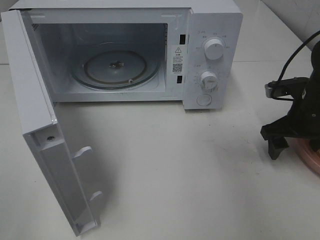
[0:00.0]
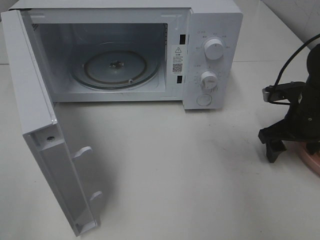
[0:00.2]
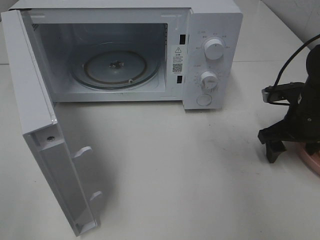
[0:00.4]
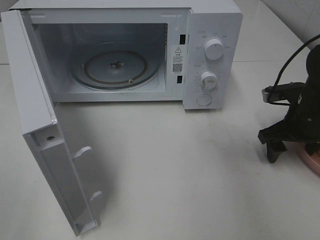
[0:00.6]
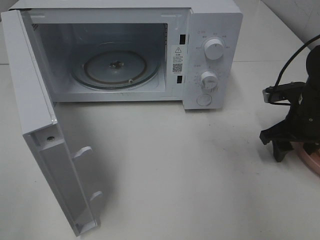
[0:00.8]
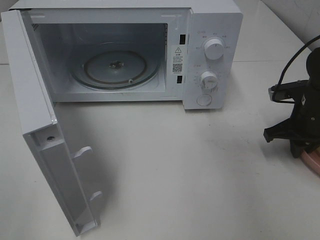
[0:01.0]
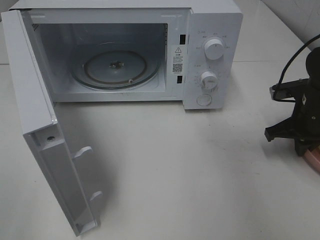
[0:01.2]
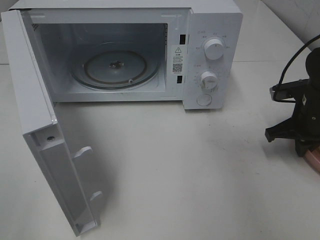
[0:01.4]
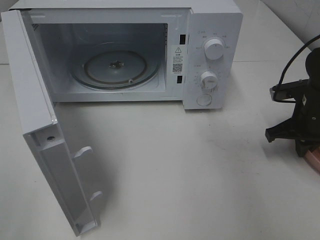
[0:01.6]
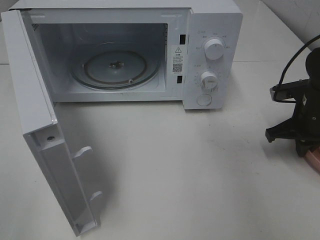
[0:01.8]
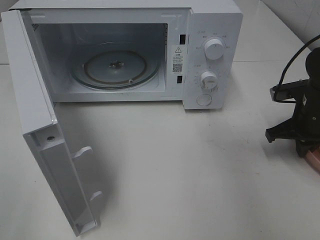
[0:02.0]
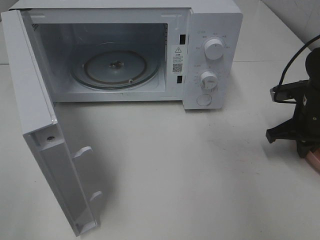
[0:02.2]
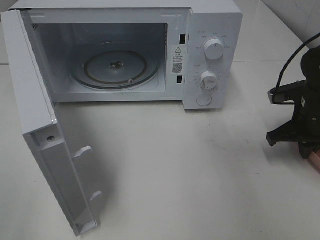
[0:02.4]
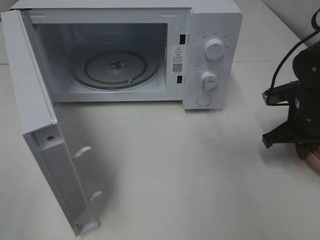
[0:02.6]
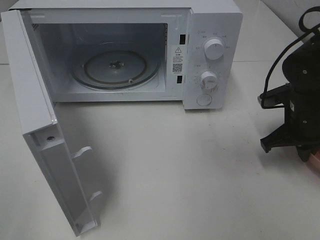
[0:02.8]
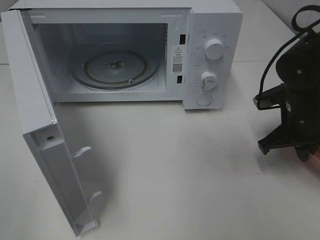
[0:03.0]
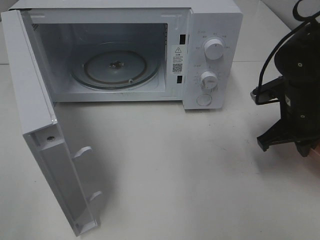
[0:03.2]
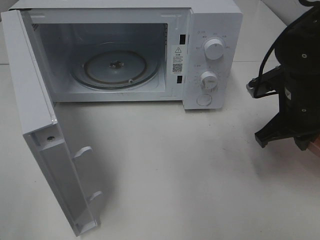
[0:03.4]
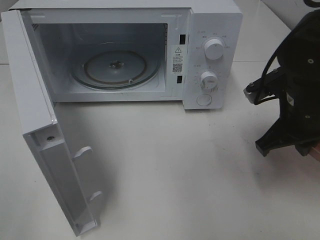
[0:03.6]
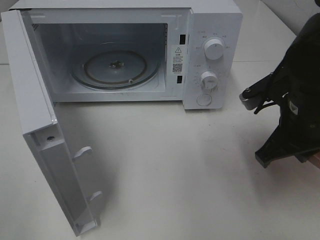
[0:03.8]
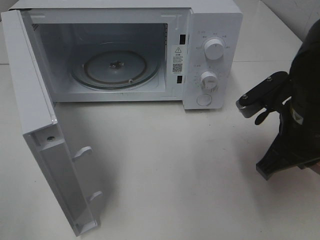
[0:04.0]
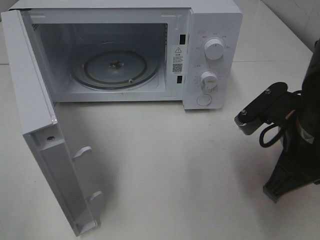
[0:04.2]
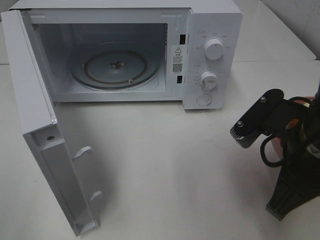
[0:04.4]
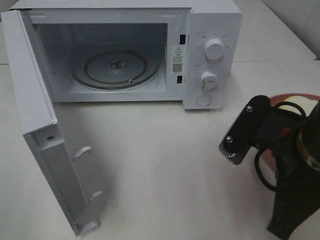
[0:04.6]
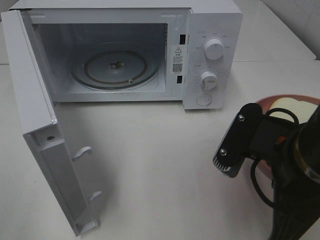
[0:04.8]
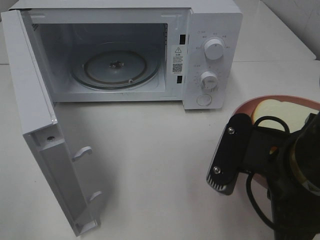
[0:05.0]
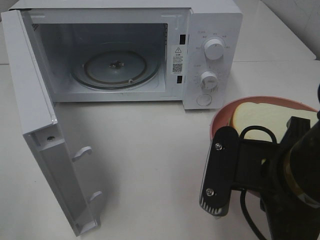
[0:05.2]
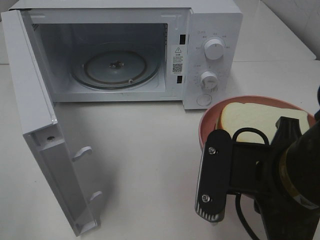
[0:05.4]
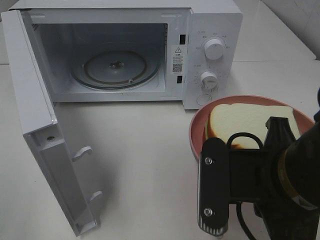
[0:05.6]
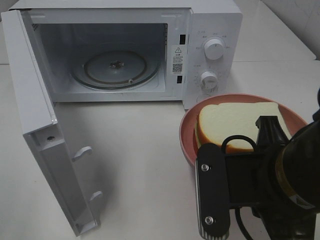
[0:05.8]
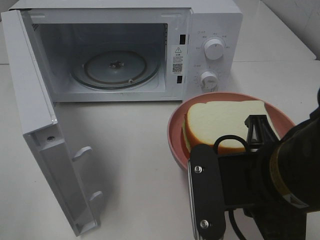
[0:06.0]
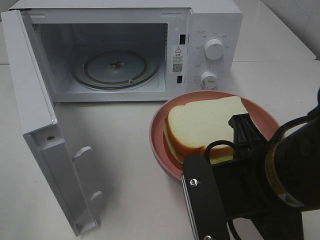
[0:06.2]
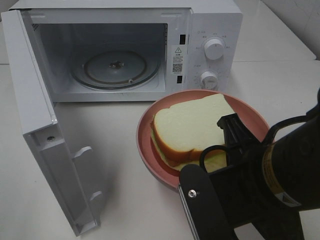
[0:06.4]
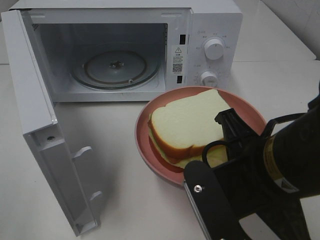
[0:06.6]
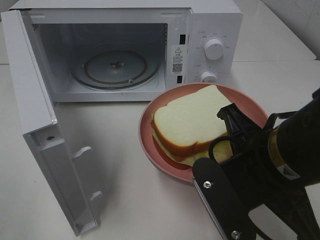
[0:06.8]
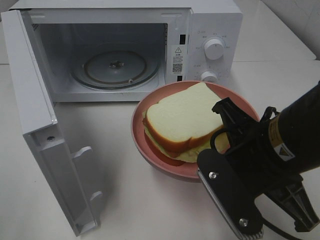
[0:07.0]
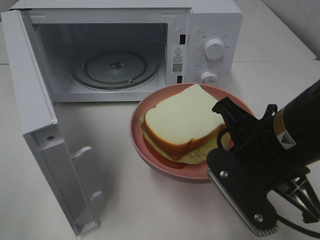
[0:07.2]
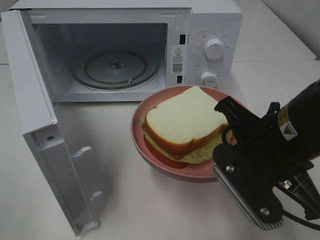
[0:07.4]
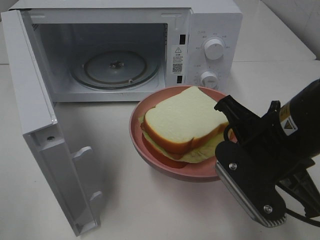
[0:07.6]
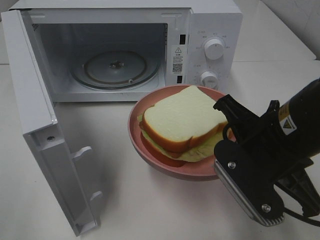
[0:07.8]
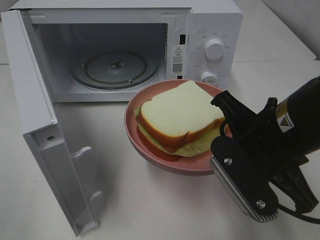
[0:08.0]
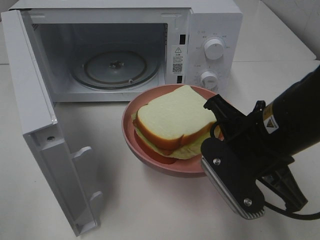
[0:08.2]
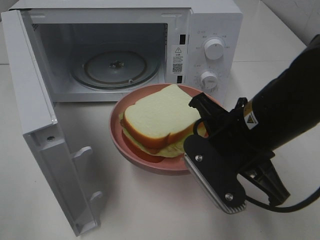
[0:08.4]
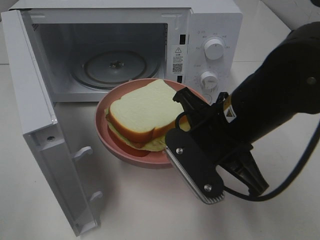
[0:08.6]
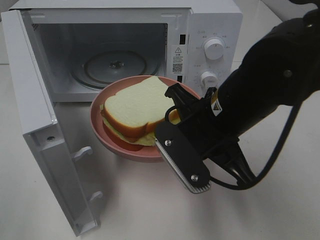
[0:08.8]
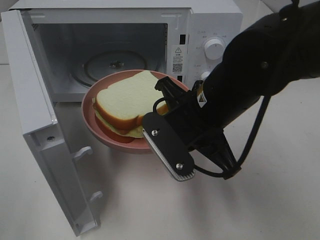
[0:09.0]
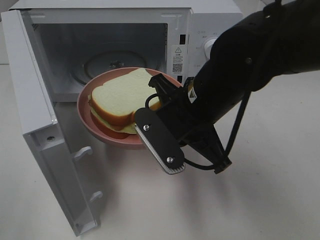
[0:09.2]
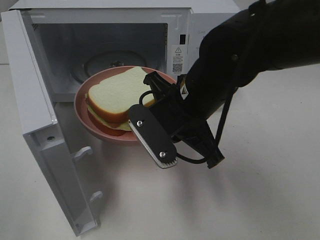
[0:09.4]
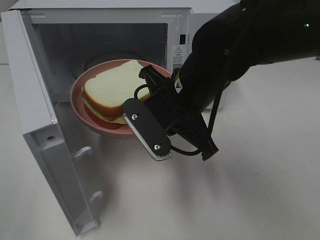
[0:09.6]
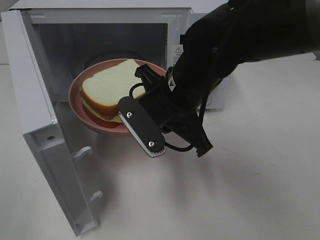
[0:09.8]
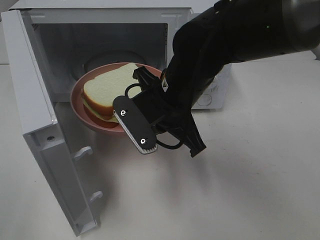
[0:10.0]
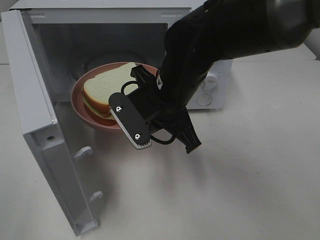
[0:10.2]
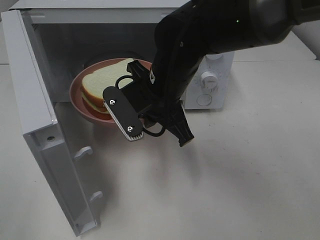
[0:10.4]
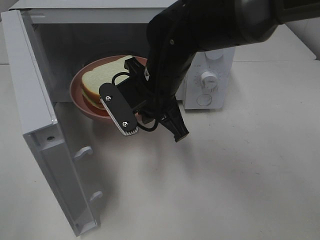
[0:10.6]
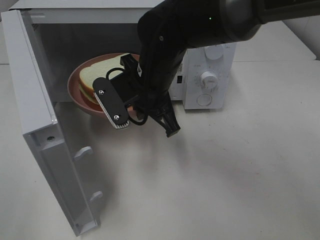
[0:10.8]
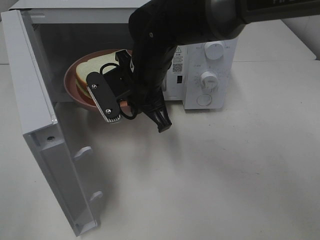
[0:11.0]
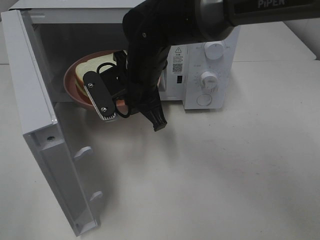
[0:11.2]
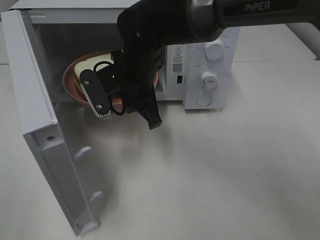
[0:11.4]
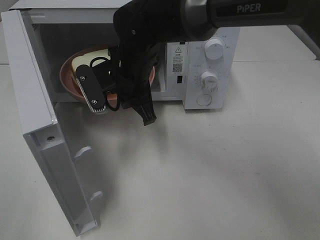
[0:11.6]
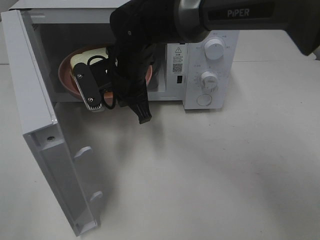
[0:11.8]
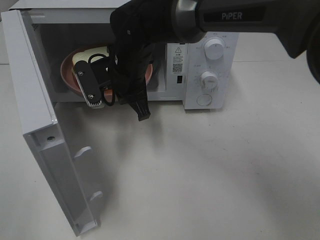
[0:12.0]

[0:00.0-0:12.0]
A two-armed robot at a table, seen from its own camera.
Task of the whole recording: Heat Sandwich.
0:00.0 to 0:01.6: The right gripper closes its fingers.
0:01.6 to 0:03.0: The grippers stay close to where they were, moving slightly.
0:03.0 to 0:04.4: The right gripper goes roughly 20 cm backward, to the left and upward.
0:04.4 to 0:06.0: The right gripper travels to the left by approximately 5 cm.
0:06.0 to 0:07.6: The right gripper travels forward by some 5 cm.
0:07.6 to 0:09.0: The right gripper heads to the left and forward, covering some 10 cm.
0:09.0 to 0:10.4: The right gripper moves forward and to the left, approximately 10 cm.
0:10.4 to 0:12.0: The right gripper shifts roughly 10 cm forward and to the left.

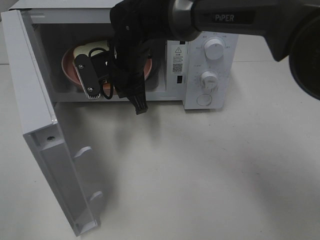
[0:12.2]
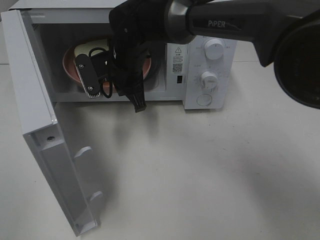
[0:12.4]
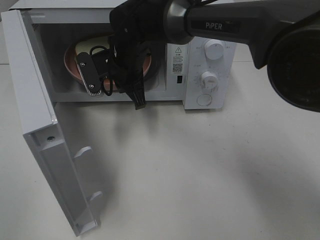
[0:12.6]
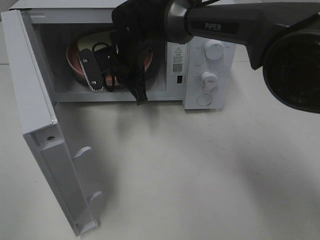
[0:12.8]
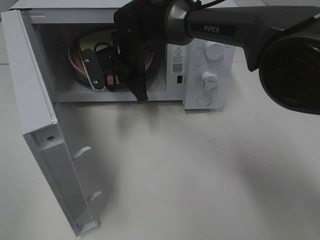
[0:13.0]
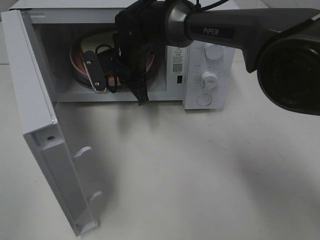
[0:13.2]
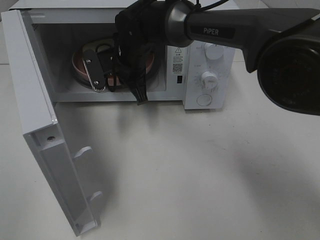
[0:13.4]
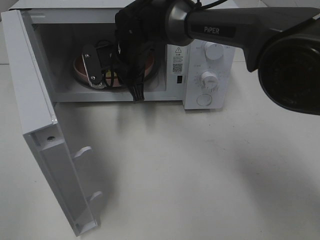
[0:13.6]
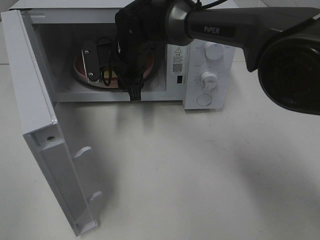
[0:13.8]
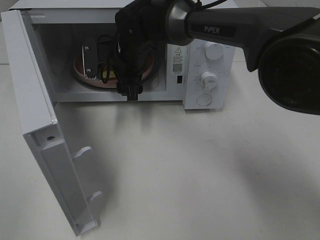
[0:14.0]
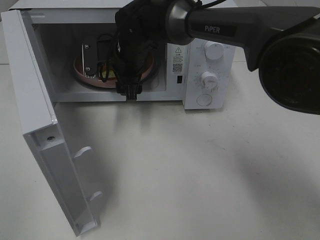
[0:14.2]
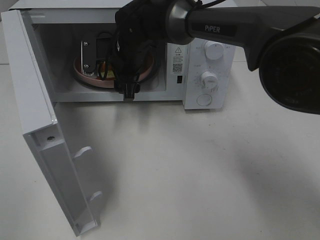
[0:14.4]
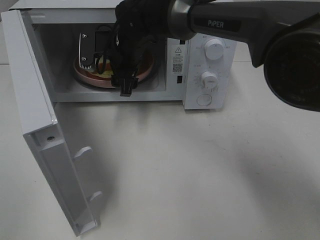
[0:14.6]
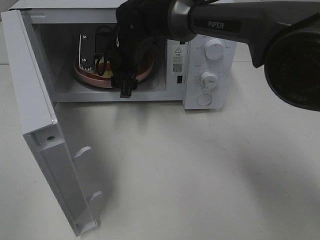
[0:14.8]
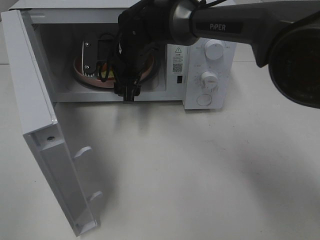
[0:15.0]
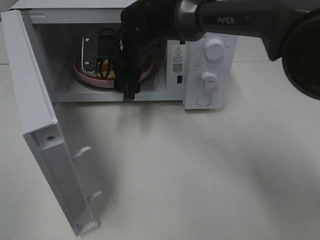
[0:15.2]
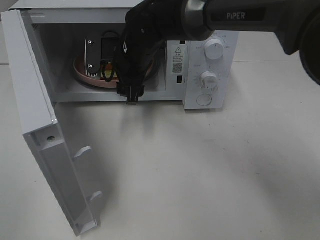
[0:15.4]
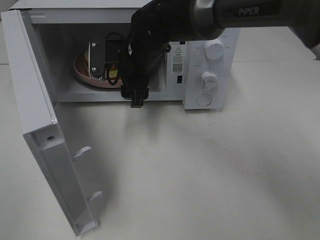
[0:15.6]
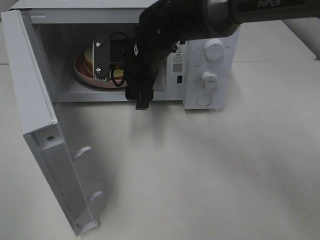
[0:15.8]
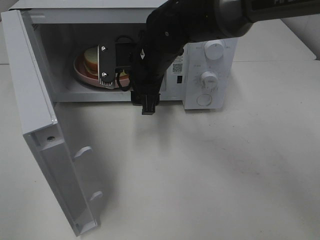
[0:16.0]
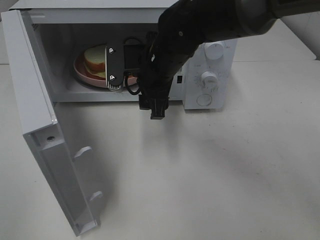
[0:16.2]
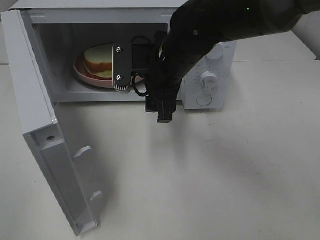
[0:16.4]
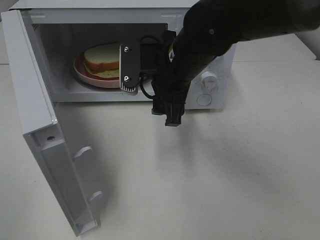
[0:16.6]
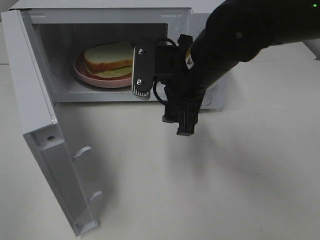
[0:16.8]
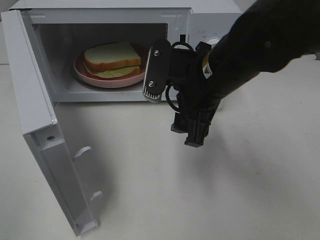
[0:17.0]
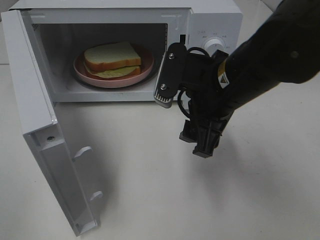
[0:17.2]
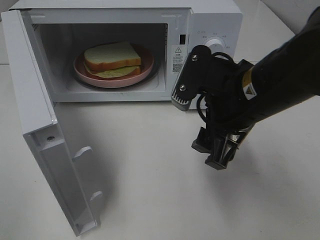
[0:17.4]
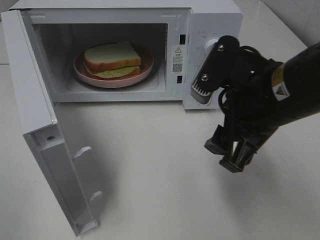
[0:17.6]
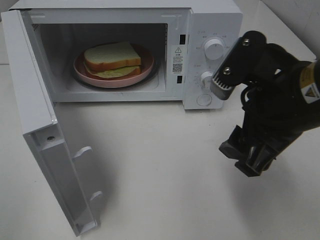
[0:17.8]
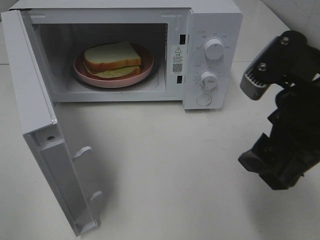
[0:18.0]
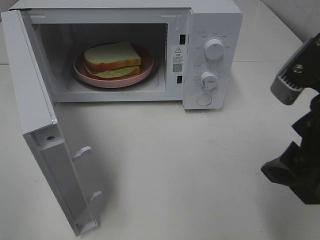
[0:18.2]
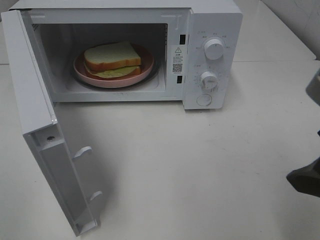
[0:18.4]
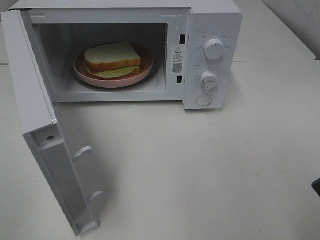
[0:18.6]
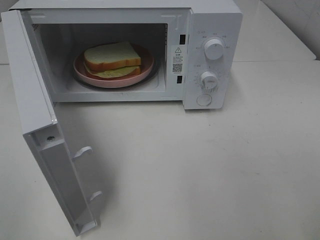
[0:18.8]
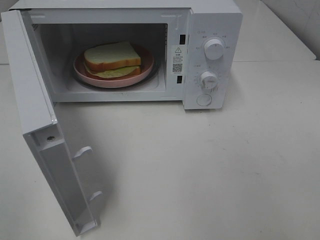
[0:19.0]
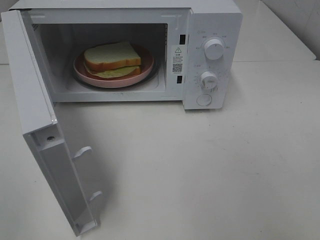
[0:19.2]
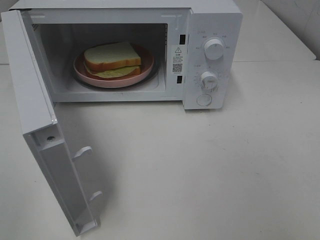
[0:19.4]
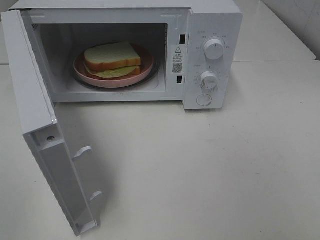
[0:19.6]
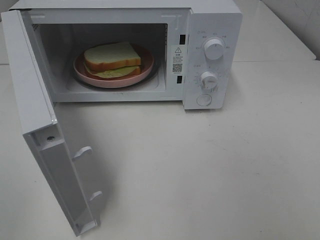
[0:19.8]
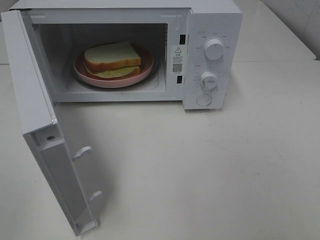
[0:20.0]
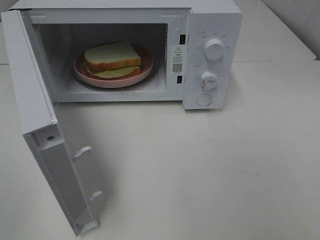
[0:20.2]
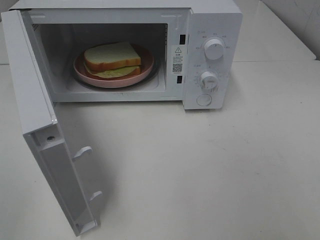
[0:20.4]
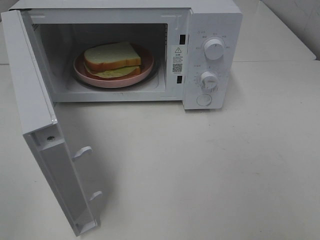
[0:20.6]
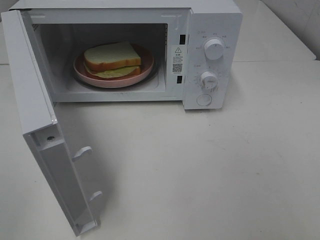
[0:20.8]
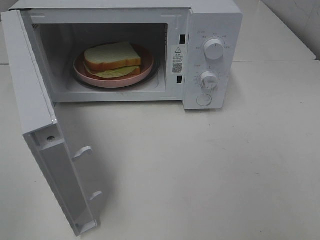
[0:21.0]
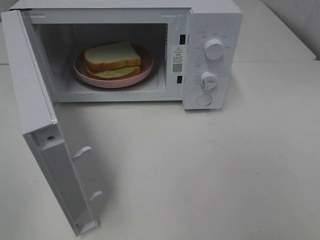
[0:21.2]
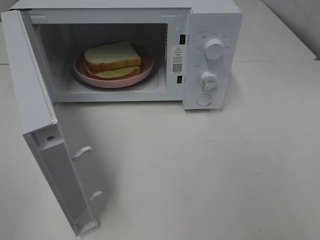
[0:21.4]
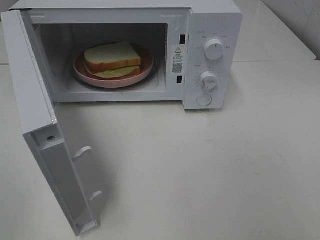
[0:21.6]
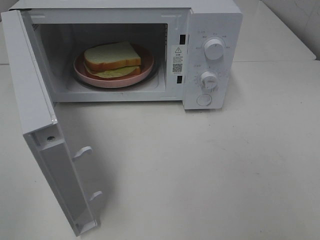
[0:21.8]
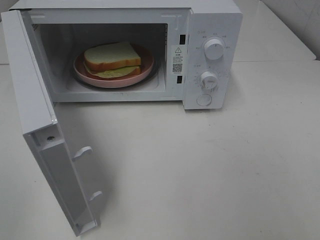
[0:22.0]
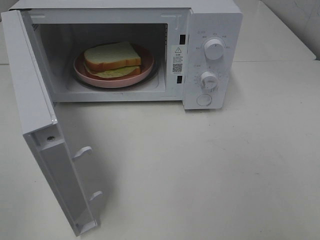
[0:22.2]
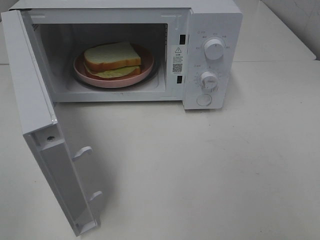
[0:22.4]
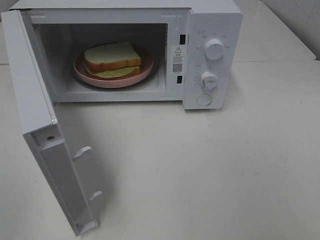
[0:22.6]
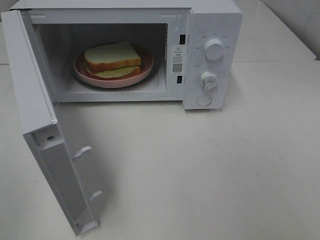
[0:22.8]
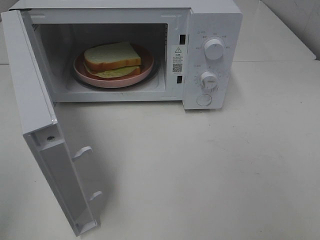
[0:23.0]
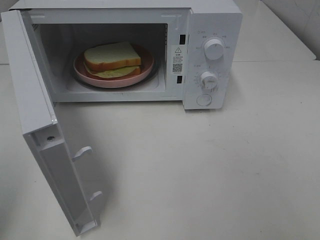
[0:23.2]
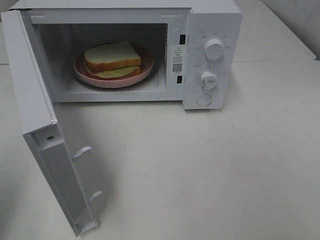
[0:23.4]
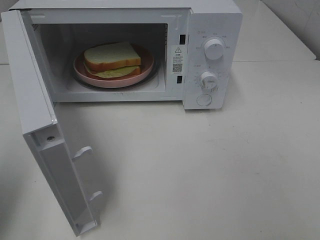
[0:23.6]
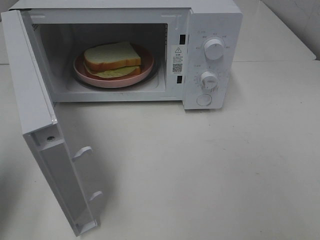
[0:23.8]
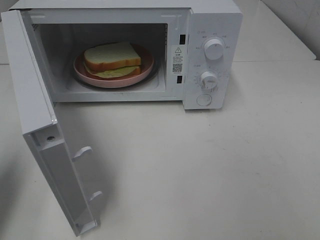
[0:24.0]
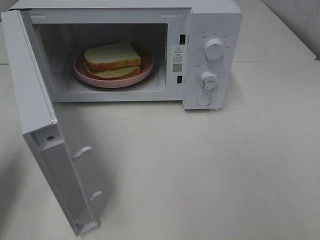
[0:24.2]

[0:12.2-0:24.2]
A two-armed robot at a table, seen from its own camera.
Task of the whole recording: Heat Sandwich.
Step, 0:12.2 to 0:15.4: Right hand: place the plate in the microwave.
0:12.2 to 0:13.8: The right gripper opens up.
0:13.8 to 0:15.2: There are only small adjustments of the grippers.
0:15.2 to 0:16.6: The right gripper shifts about 15 cm backward and to the right.
0:16.6 to 0:18.2: The right gripper shifts approximately 25 cm backward and to the right.
0:18.2 to 0:19.8: The right gripper moves backward and to the right, roughly 20 cm.
0:21.2 to 0:22.6: Both grippers stay put.
0:22.6 to 0:24.2: The left gripper travels forward by roughly 20 cm, and closes.
